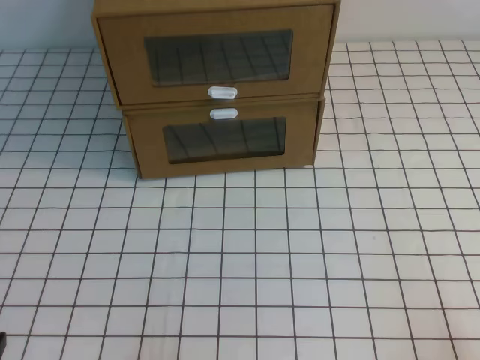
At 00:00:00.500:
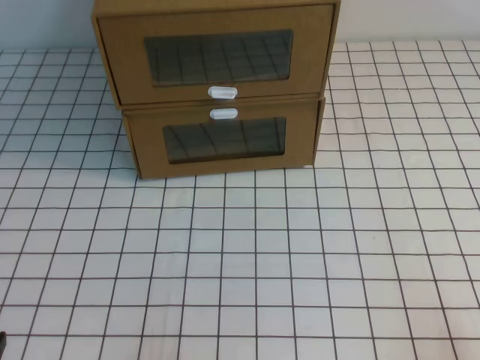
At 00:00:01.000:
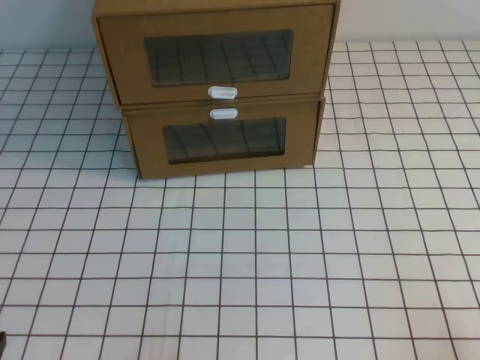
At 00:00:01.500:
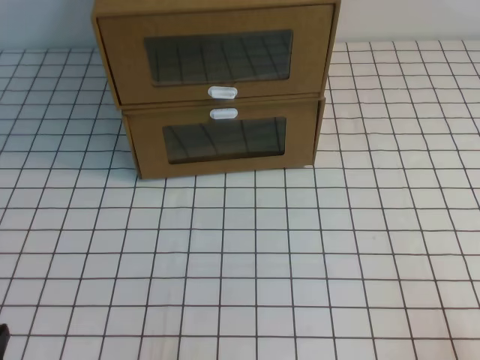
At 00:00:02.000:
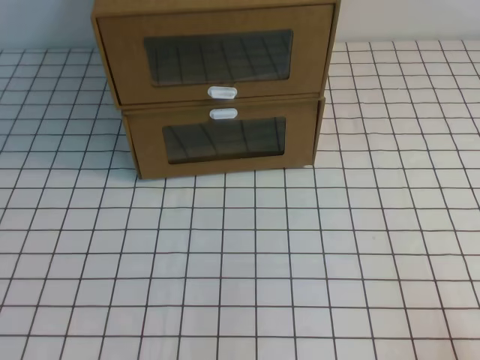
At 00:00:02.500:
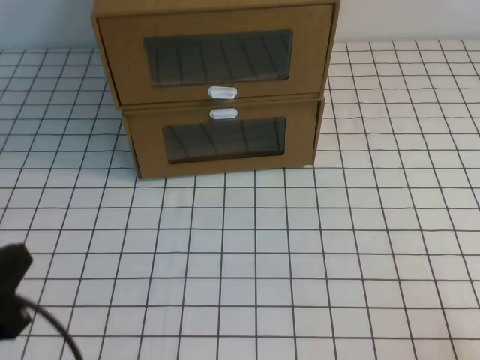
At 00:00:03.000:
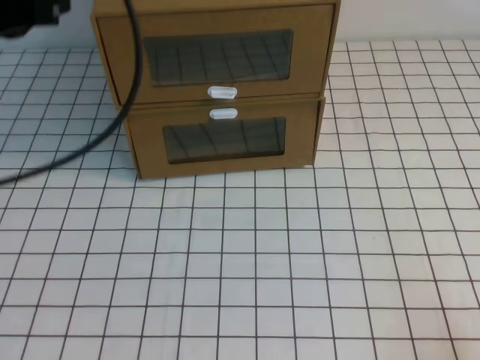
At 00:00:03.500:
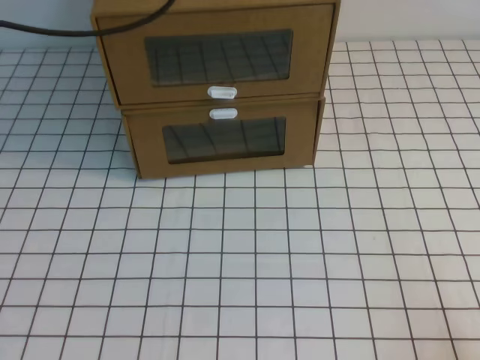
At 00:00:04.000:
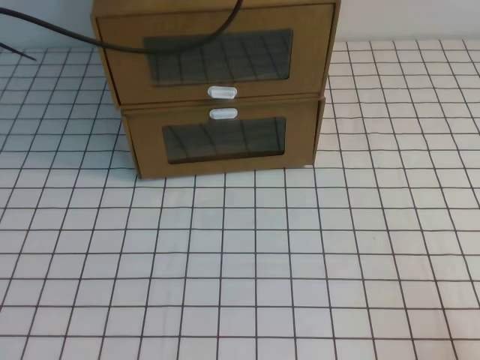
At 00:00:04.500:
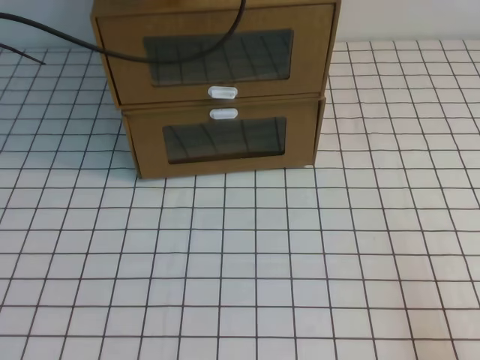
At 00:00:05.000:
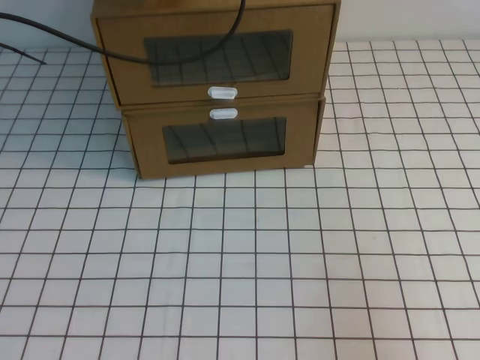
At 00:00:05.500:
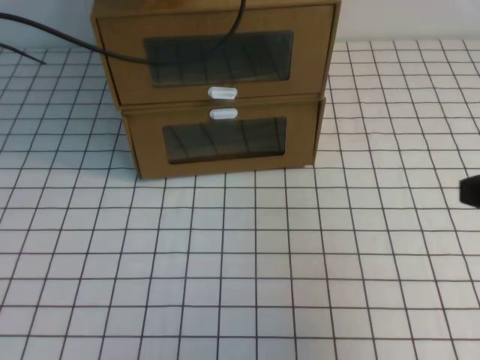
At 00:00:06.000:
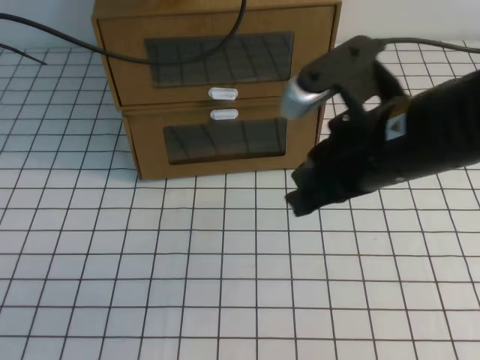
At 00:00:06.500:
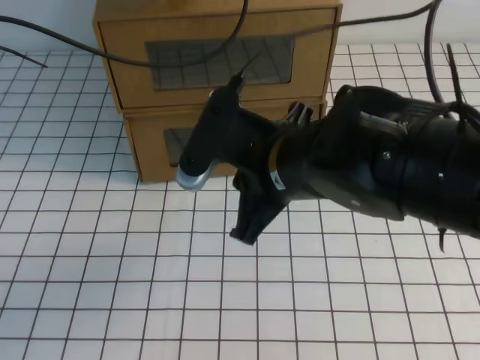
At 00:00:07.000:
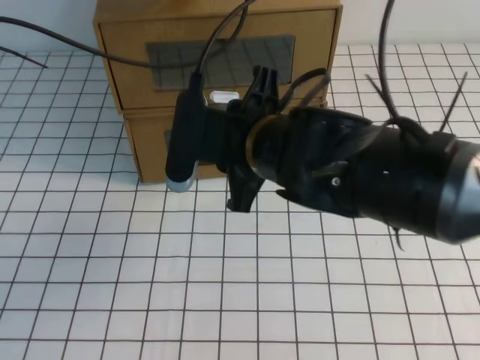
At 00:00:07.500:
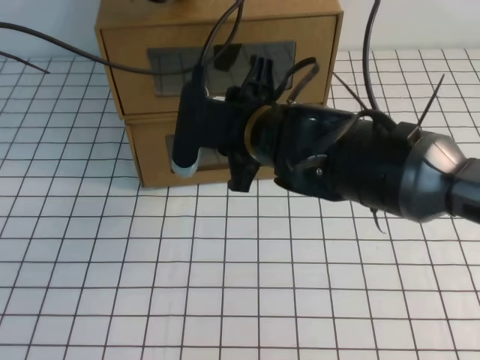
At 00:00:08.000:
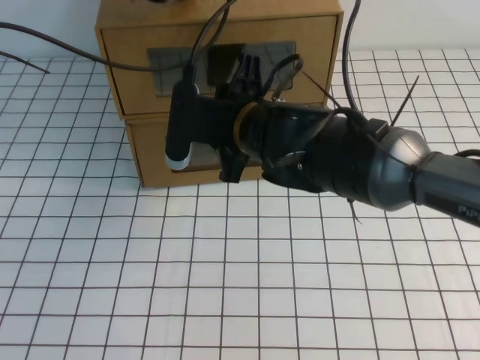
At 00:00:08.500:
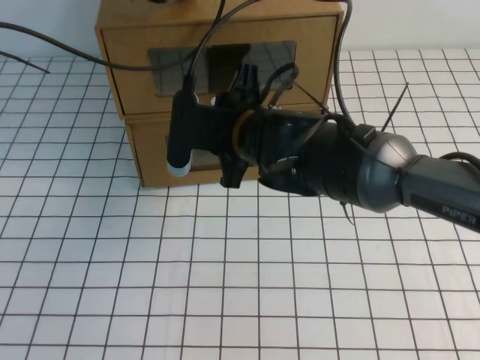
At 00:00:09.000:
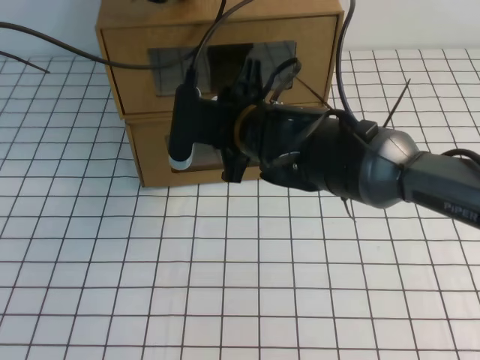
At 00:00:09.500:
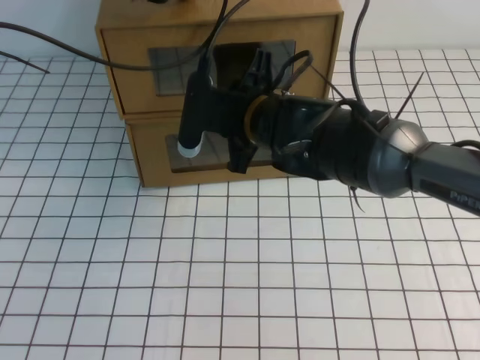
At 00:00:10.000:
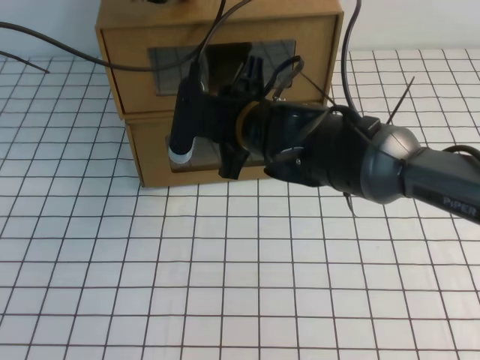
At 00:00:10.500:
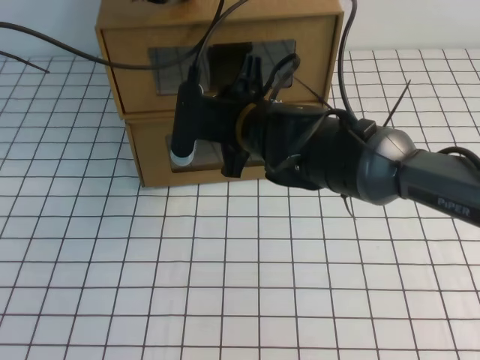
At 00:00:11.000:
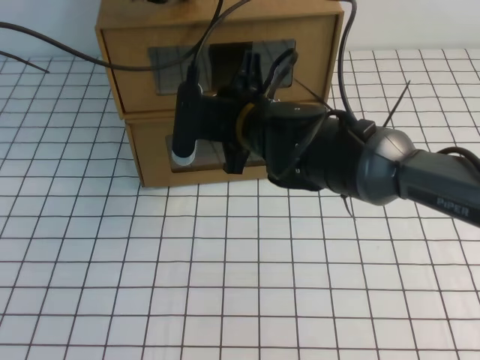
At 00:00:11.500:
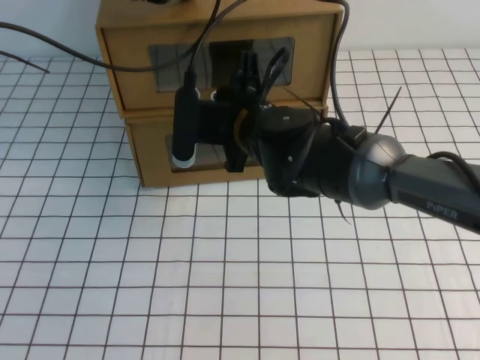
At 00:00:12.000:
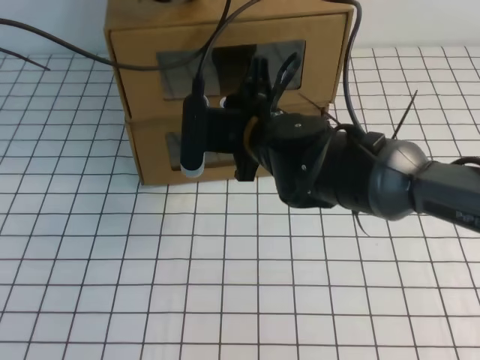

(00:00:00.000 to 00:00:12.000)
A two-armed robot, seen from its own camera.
Task of the whole recording: open the shoebox on the white tablecloth.
00:00:02.000 - 00:00:04.000: The left gripper goes some 40 cm forward and upward.
00:00:04.000 - 00:00:06.000: The right gripper is displaced forward, upward and to the left by roughly 30 cm.
00:00:06.000 - 00:00:08.000: The right gripper is displaced to the left and forward by approximately 20 cm, and opens.
00:00:08.000 - 00:00:10.000: The grippers stay close to where they were, moving slightly.
00:00:10.000 - 00:00:12.000: The right gripper closes its fingers.

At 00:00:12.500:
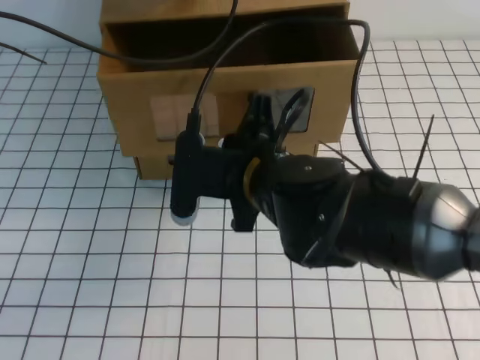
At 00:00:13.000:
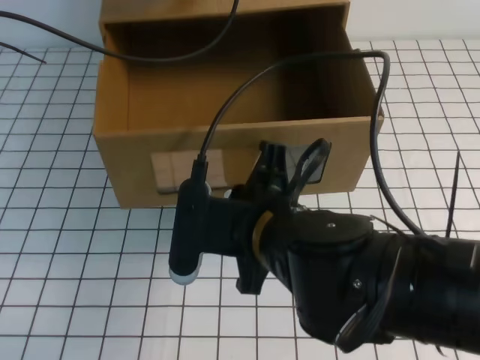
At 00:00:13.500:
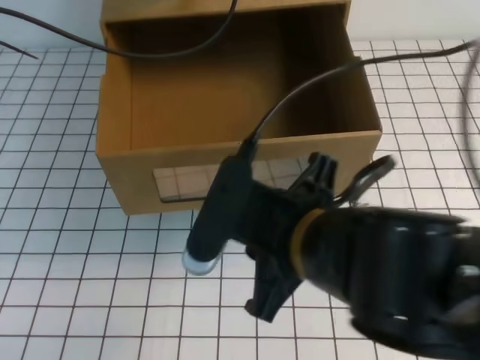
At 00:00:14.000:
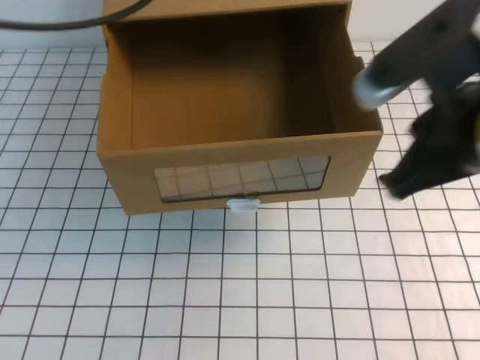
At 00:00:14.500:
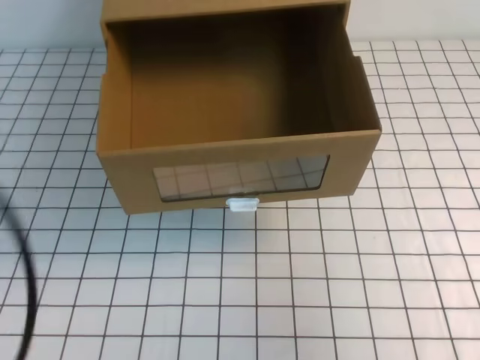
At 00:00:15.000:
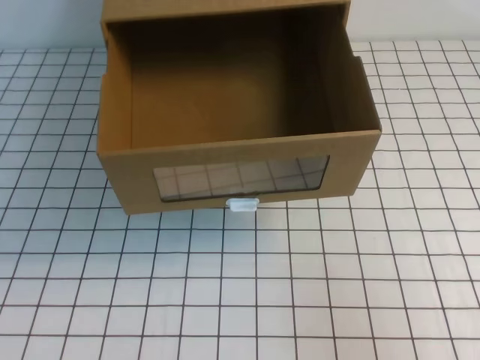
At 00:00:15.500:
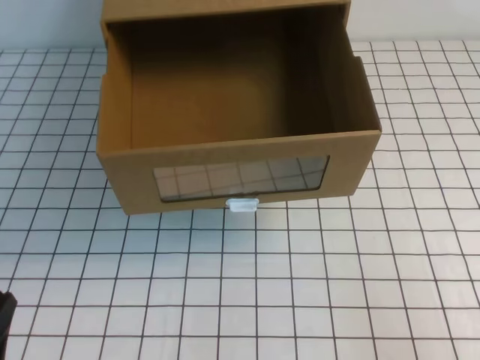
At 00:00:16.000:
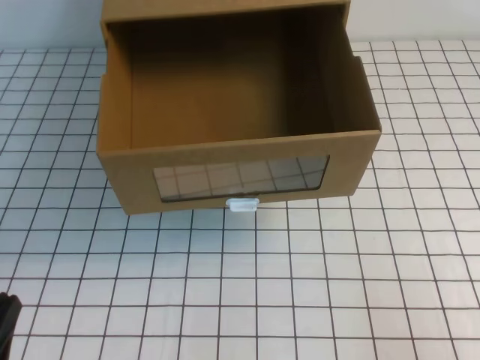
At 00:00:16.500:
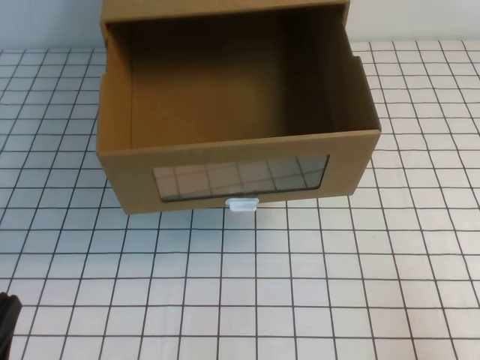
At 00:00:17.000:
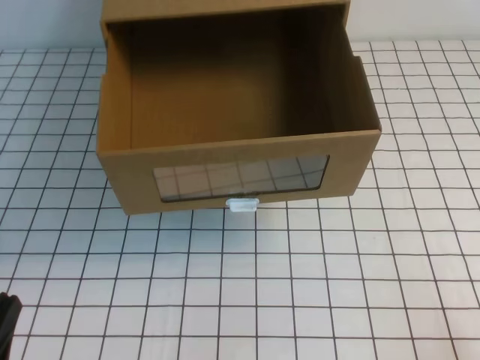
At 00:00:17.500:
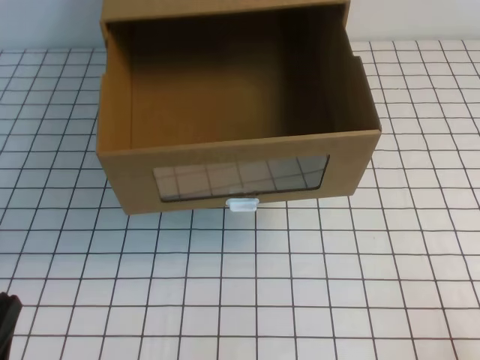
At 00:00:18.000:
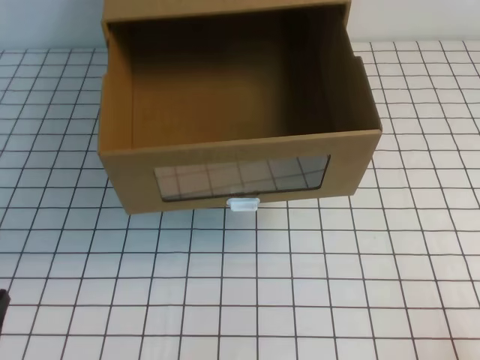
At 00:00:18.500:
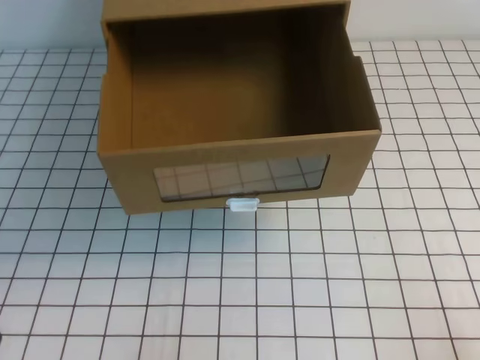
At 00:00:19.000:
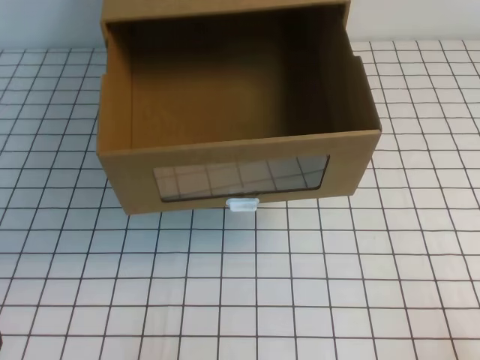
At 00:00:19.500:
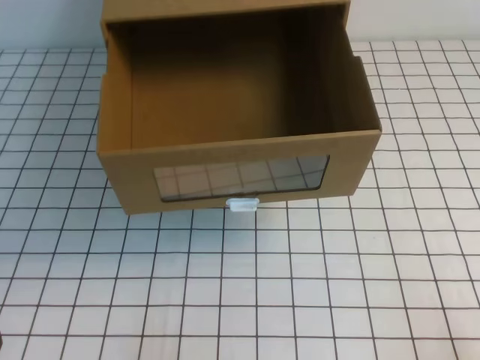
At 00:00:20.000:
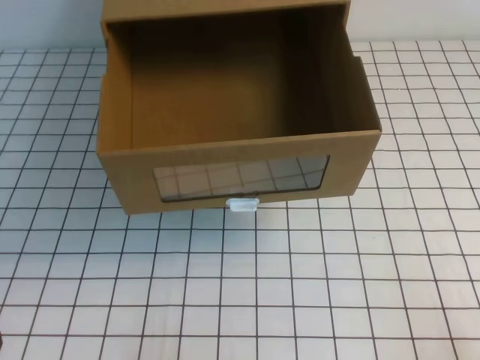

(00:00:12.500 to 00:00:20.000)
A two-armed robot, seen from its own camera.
Task of the whole recording: open the shoebox on the white tablecloth.
Step, 00:00:12.500 - 00:00:20.000: Open the shoe box.
00:00:12.500 - 00:00:14.500: The right gripper moves to the right, upward and backward, about 30 cm, and opens, then closes again; the left gripper travels backward by roughly 30 cm.
00:00:14.500 - 00:00:16.500: The right gripper travels downward and backward by roughly 20 cm, while the left gripper moves downward, some 30 cm.
00:00:16.500 - 00:00:18.000: The right gripper heads downward, covering about 5 cm.
